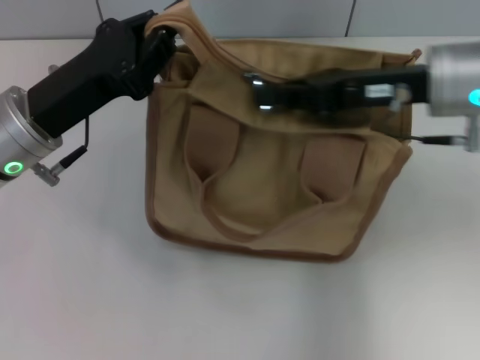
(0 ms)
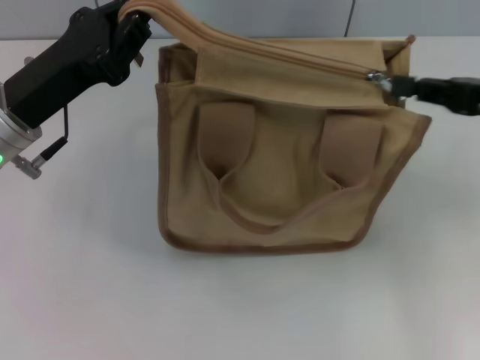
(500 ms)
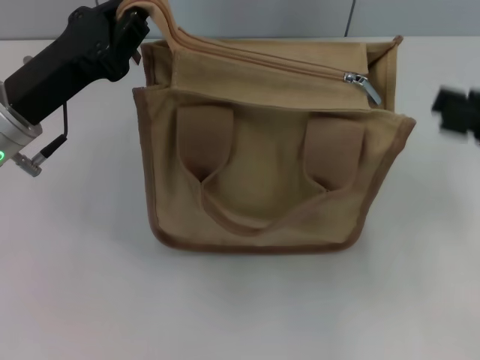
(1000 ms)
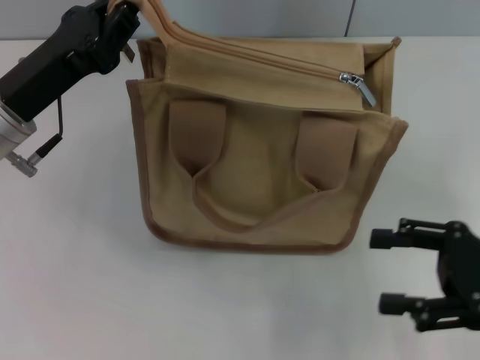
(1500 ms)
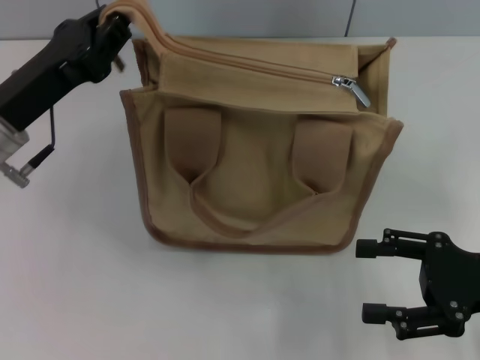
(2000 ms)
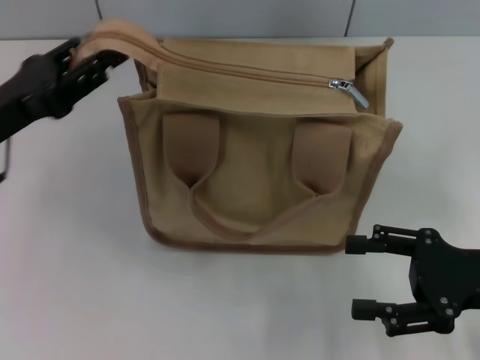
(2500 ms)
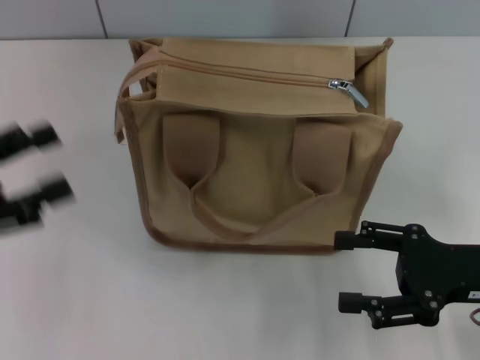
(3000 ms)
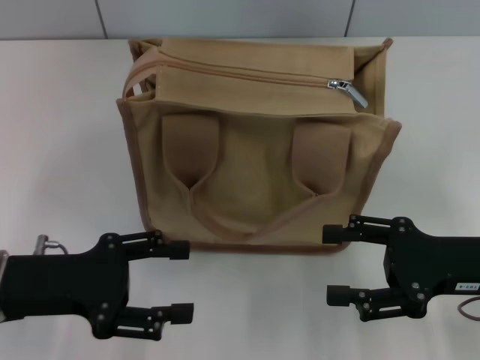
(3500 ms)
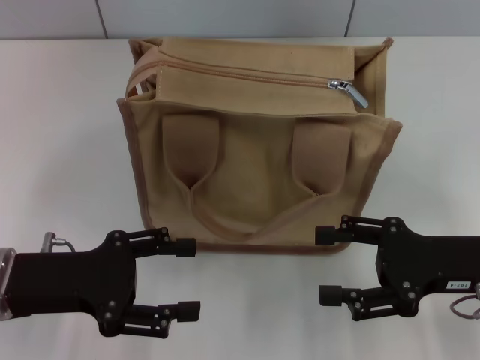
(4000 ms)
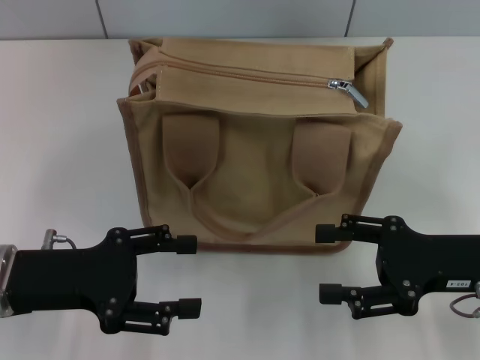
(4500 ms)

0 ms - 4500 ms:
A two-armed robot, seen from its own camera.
Step, 1000 ms - 2500 ms: Grab the zipper with your left hand.
0 ms - 2000 ms: The right gripper travels backward, downward and to the right by some 20 cm, and opens its fingers.
2000 ms - 4500 ms: The left gripper shifts roughly 10 cm backward, travels to the left and back again, about 10 cm each way, and opens its fingers.
